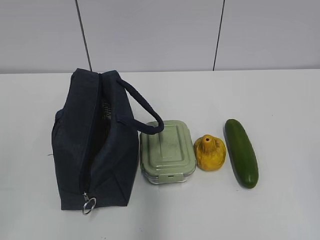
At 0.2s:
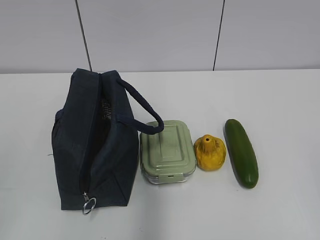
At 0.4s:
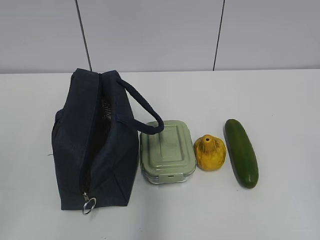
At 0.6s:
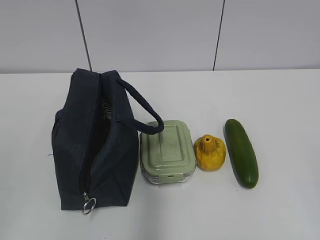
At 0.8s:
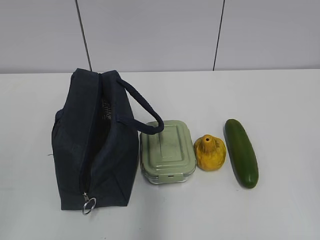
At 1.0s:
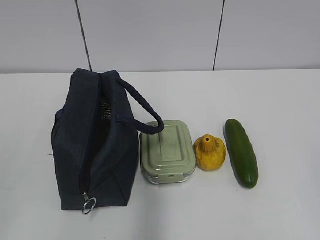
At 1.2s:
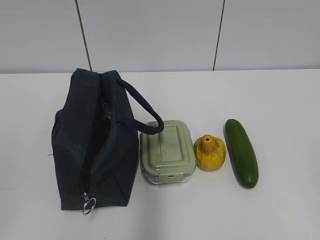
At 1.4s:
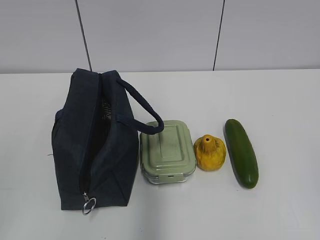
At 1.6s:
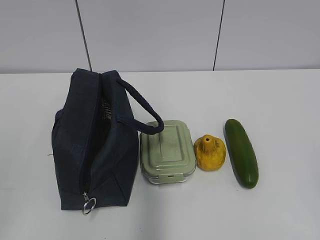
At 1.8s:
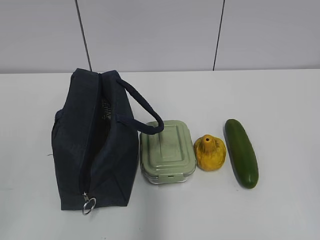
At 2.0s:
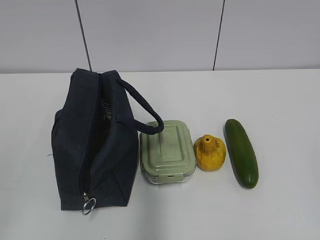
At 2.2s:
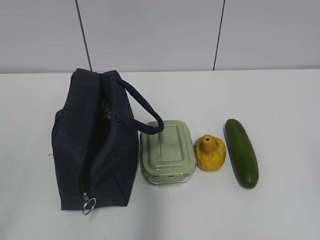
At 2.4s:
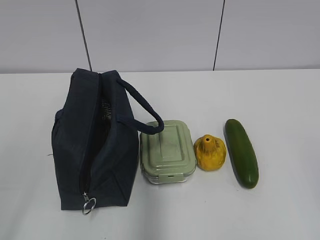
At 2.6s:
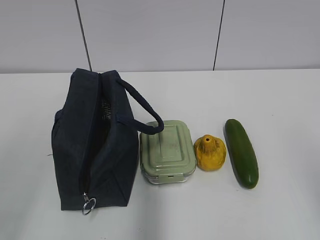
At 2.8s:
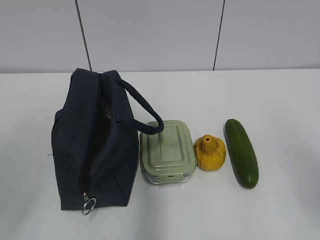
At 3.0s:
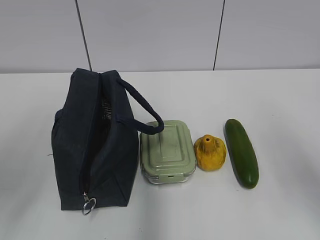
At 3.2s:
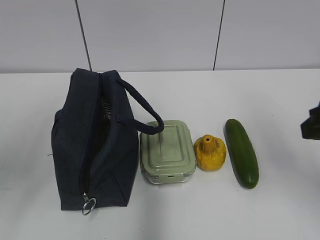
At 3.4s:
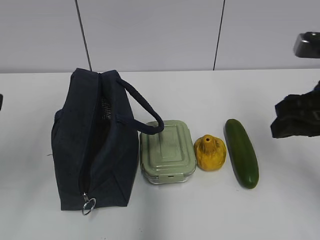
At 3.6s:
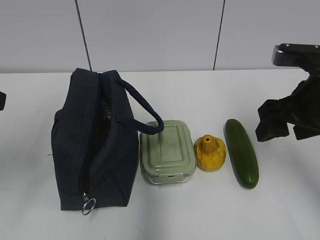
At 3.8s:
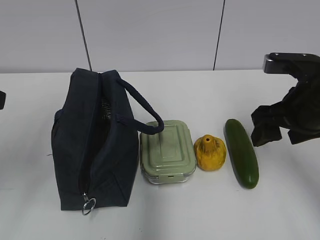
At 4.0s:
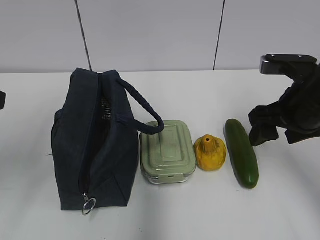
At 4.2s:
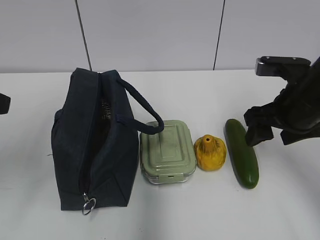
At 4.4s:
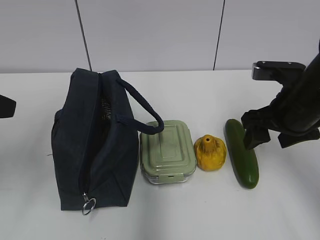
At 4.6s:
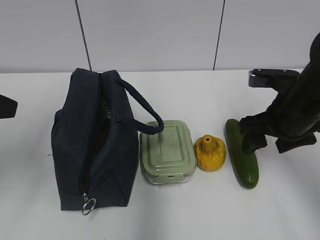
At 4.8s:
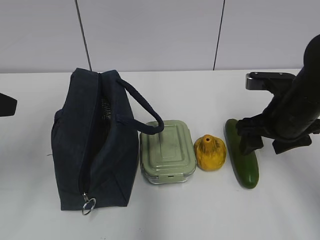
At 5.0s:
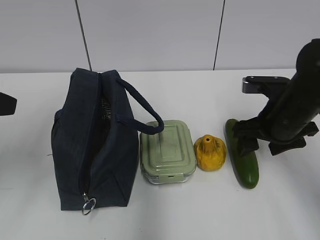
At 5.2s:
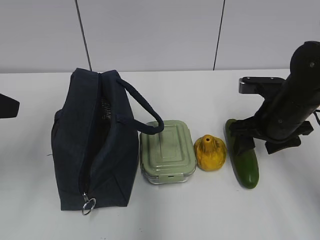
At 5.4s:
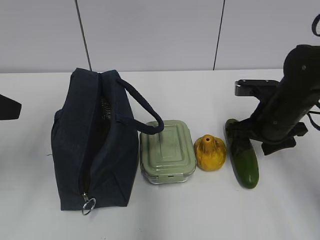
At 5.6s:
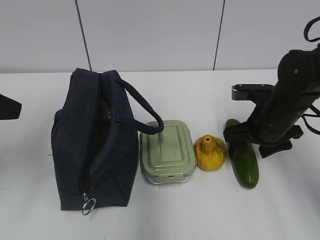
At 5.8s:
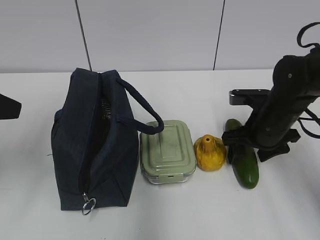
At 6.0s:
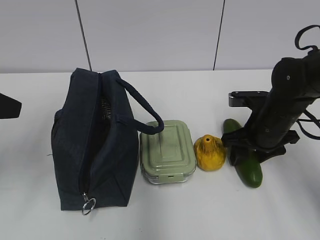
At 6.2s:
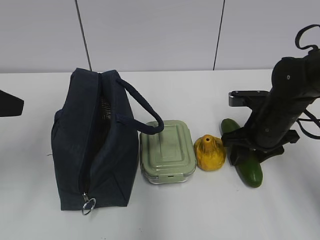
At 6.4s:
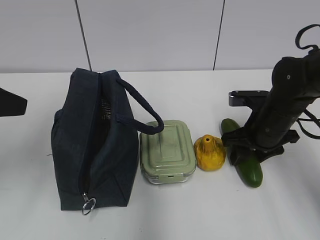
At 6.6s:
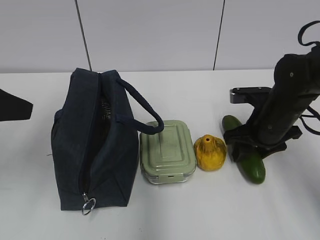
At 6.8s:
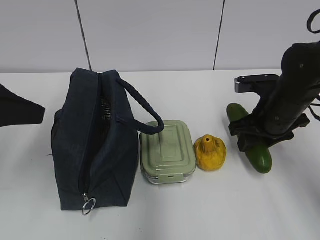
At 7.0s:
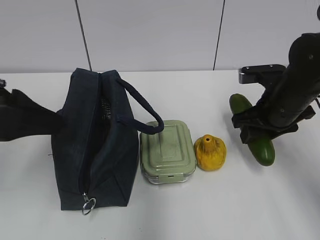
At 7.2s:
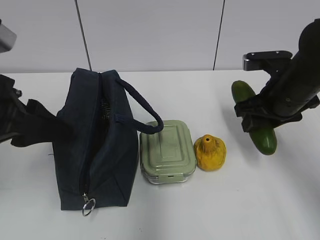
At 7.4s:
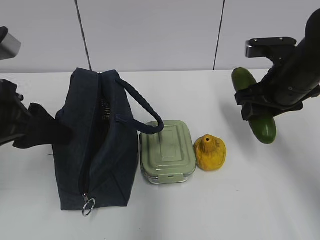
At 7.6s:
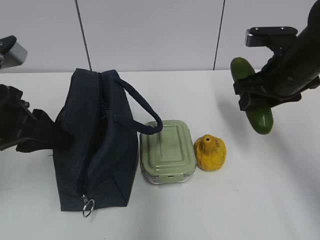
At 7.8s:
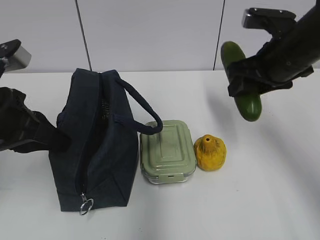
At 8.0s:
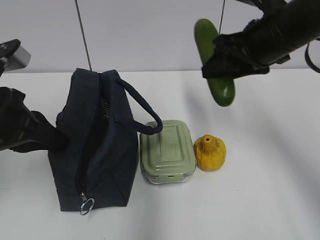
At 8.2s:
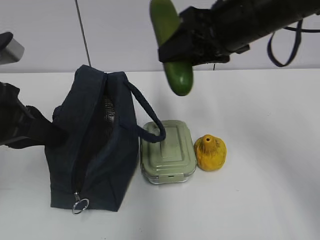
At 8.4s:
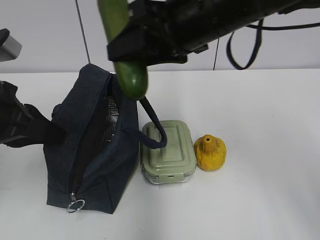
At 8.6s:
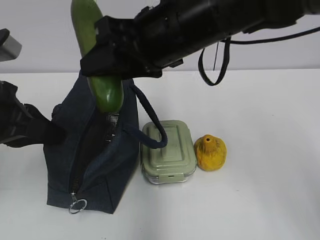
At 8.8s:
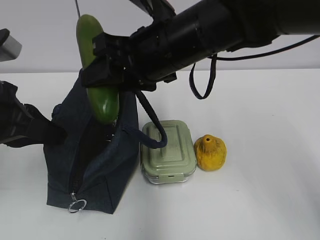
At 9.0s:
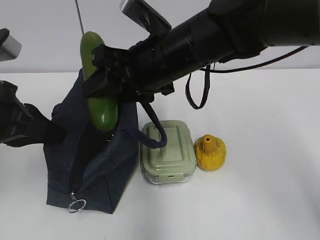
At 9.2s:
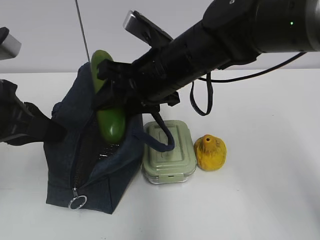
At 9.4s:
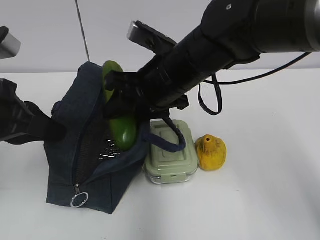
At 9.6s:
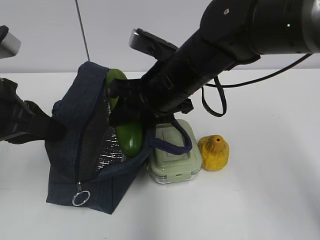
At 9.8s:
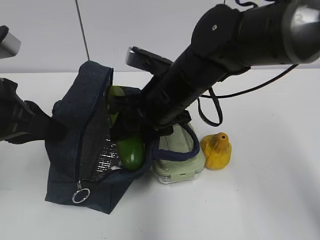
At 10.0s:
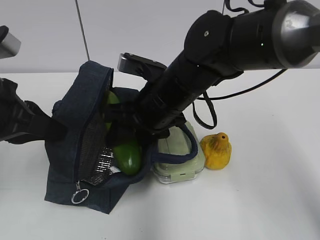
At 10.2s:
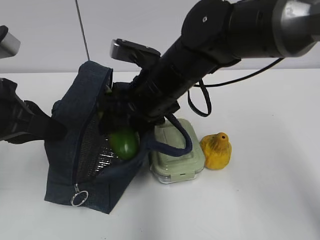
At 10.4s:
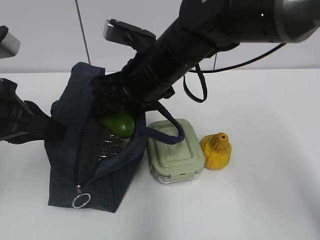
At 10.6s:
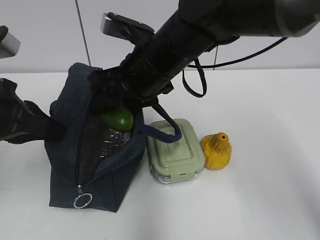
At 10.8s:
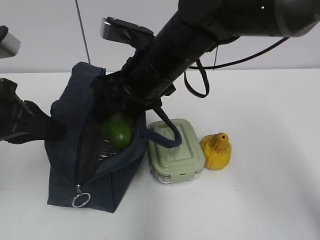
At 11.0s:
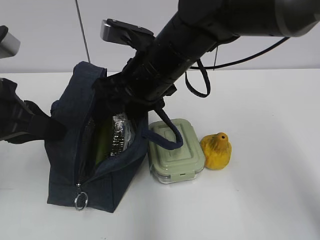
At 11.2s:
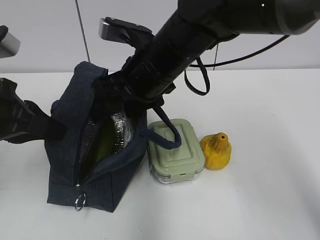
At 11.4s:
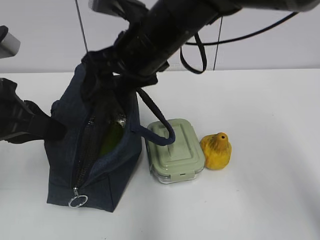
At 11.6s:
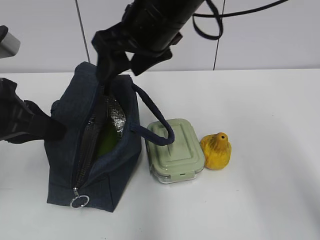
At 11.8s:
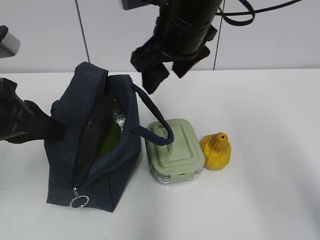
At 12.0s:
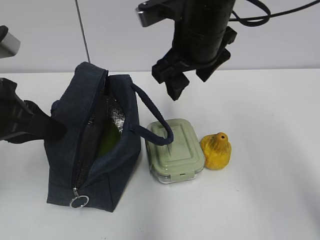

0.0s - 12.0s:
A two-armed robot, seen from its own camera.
Step, 0.0s - 6.2s: Grab the cucumber with your right hand.
Step, 6.4s - 9.2s: Grab the lunch bag with your left hand.
Step, 9.4s - 11.4s: Place it into the bag with your right hand.
1.6s - 3.0s: The two grippers go about 15 cm forward.
3.0s - 4.4s: The right gripper goes about 15 cm forward and downward; the left gripper shifts roughly 5 cm forward.
4.4s - 6.0s: The right gripper shifts roughly 10 cm downward.
6.0s - 7.6s: The right gripper heads upward, covering some 10 cm. The left gripper changes place by approximately 5 cm.
7.6s - 9.0s: The right gripper is displaced to the left by roughly 20 cm; the left gripper closes its fingers.
9.0s - 10.4s: The grippers stay close to where they were, moving slightly.
10.4s - 12.0s: The right gripper is displaced to the right by roughly 5 cm.

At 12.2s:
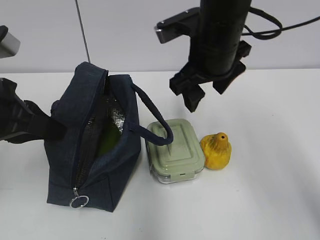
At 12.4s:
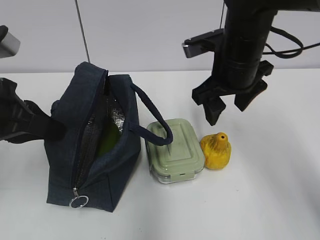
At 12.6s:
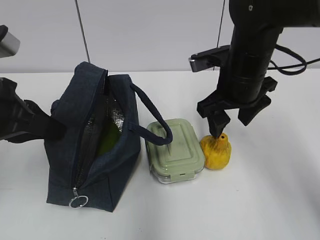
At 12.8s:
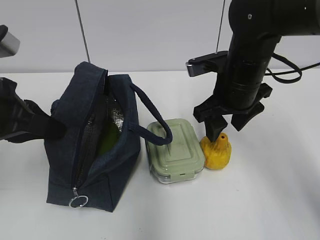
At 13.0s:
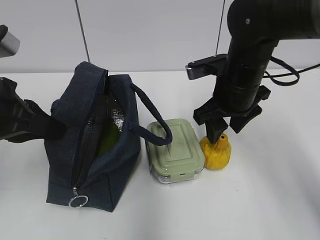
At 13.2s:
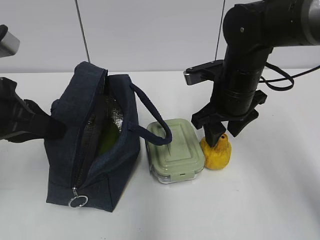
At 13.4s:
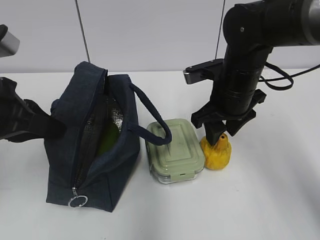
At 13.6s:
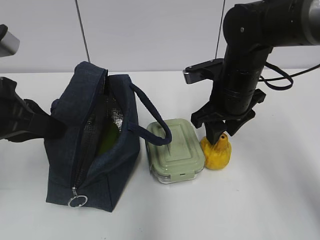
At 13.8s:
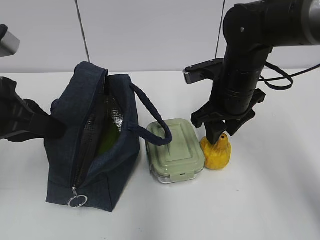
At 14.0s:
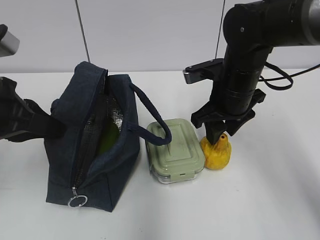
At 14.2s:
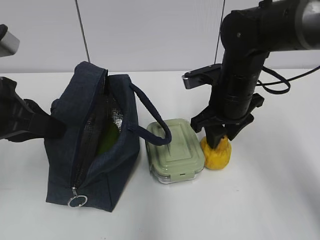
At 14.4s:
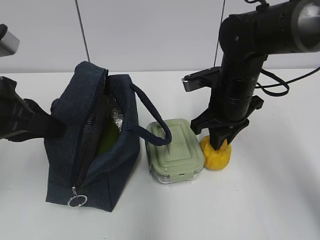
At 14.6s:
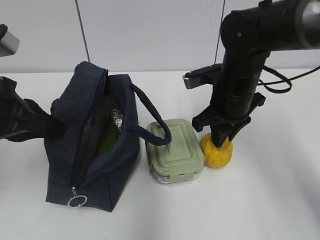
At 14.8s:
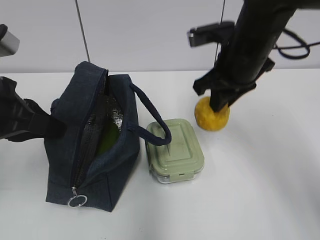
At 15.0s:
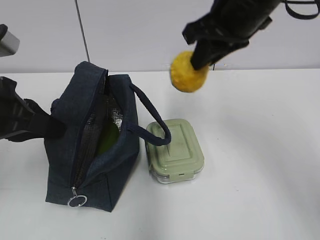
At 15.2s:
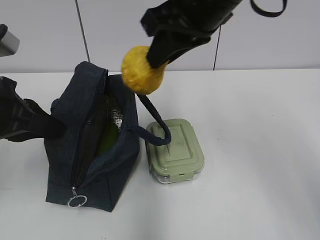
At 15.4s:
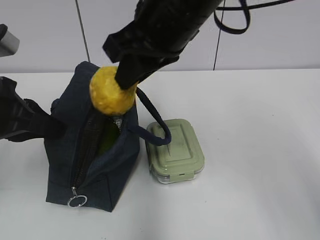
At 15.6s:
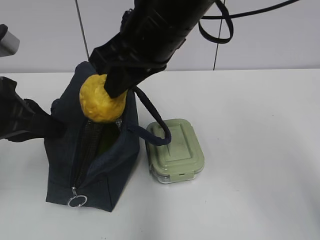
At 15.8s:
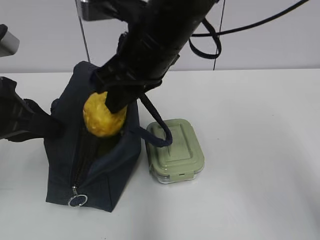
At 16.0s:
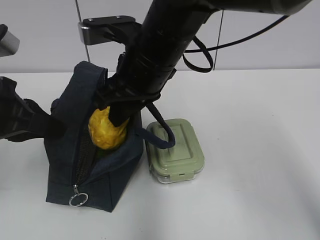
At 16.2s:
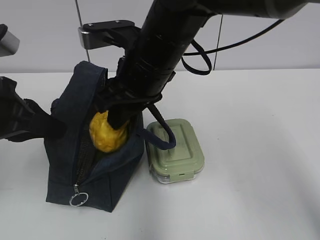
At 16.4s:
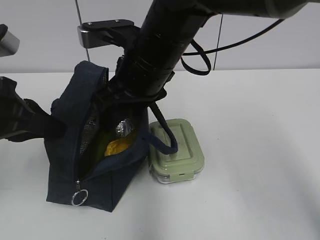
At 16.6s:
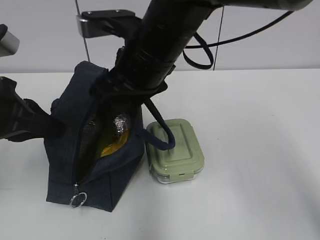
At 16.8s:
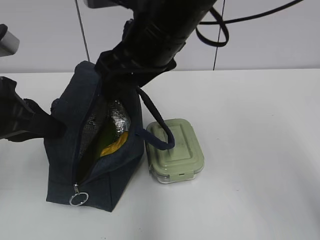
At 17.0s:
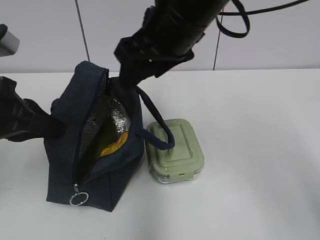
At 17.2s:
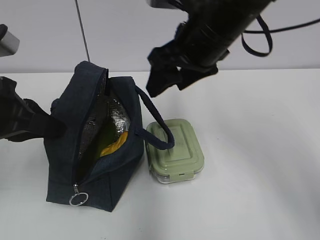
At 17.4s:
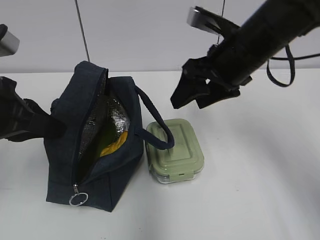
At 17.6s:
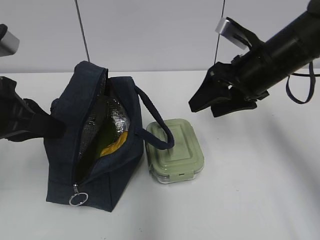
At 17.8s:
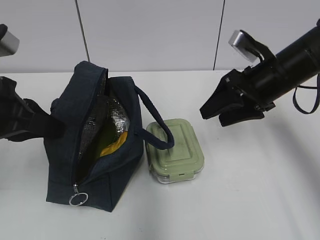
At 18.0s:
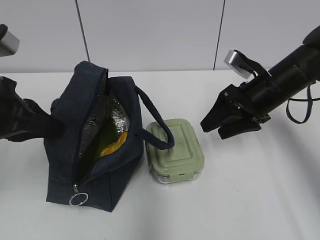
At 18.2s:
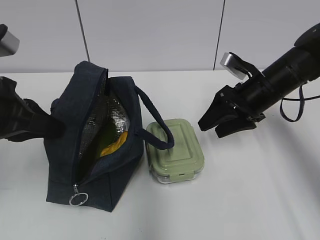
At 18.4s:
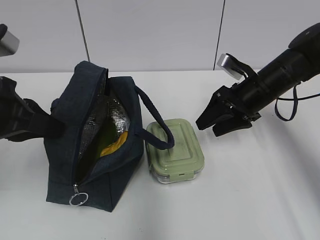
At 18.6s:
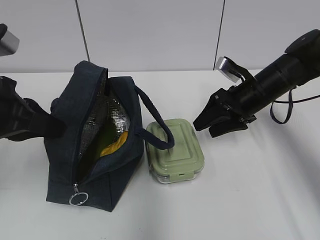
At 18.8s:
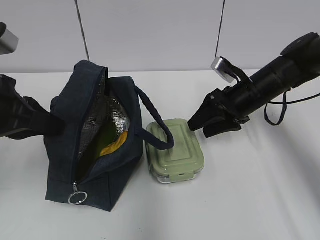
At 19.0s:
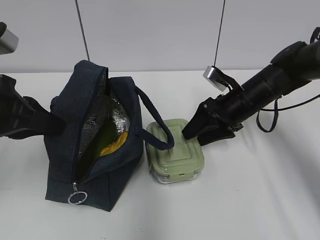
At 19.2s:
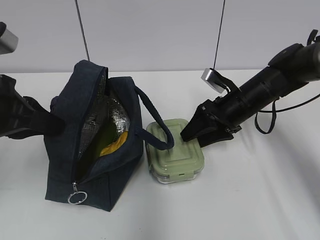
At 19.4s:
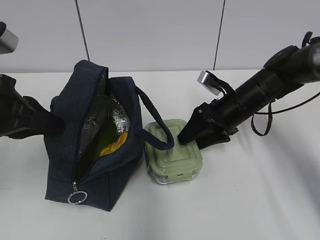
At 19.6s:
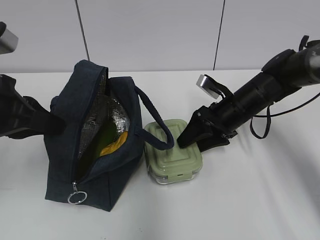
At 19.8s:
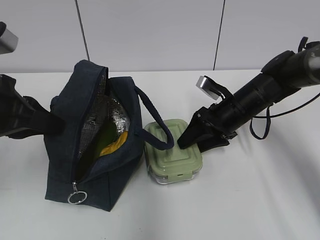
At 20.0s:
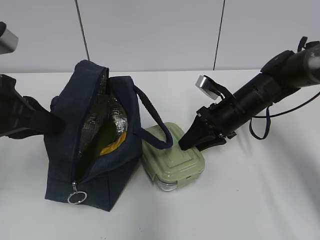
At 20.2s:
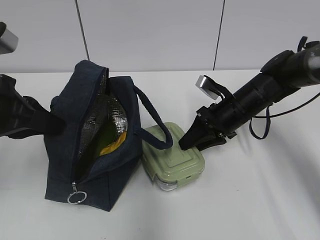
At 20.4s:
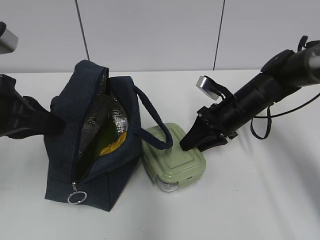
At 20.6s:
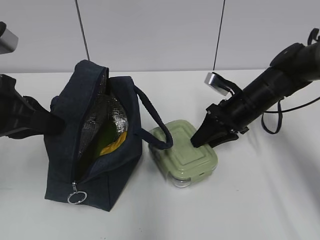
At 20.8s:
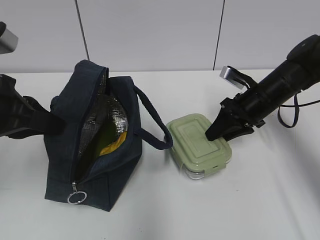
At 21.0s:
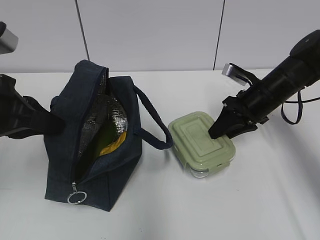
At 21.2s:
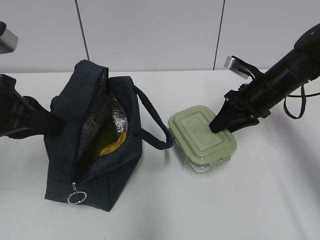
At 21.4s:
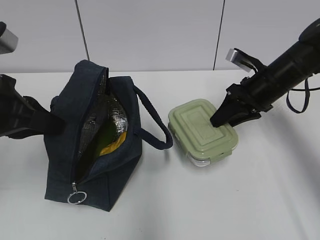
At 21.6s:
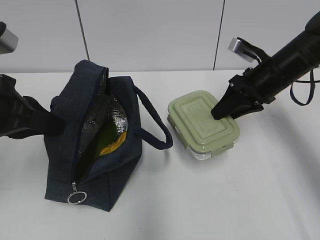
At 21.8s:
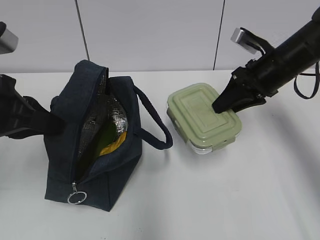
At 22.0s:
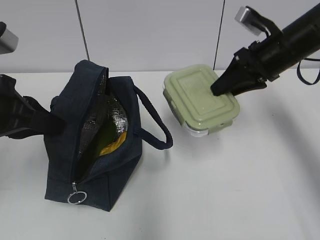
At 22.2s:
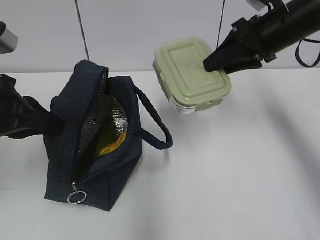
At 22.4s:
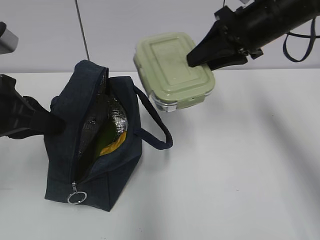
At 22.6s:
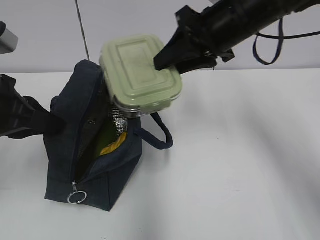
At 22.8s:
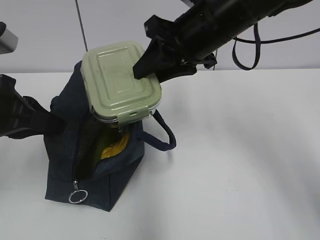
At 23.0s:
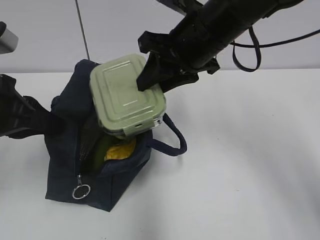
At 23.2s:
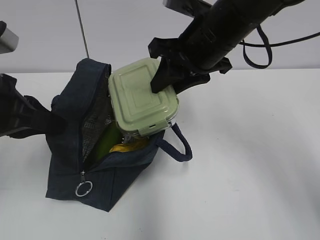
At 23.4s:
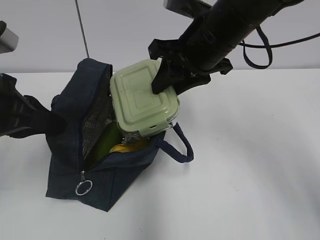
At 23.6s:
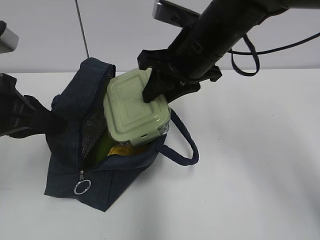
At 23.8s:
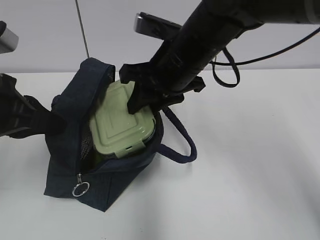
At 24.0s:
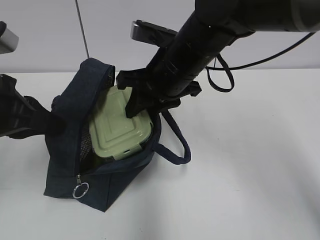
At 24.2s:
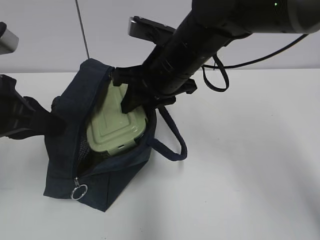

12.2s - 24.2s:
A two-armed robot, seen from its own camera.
Step, 12.2s - 14.4s: Grab the pear with your right hand.
Step, 14.6s - 16.8s: Place it into the bag with your right hand.
Step, 17.0s - 20.0s: Grab the lunch box with your right hand.
12.2s - 13.8s: The right gripper travels downward by about 10 cm.
13.8s - 15.2s: The right gripper travels upward by about 15 cm, and closes up.
15.2s - 16.6s: The right gripper goes approximately 10 cm downward and to the left, and opens.
16.6s - 18.2s: The right gripper goes roughly 25 cm to the right and downward.
18.2s - 19.8s: The right gripper goes approximately 5 cm downward.
19.8s - 21.2s: The right gripper shifts about 5 cm to the right, and closes up.
21.2s - 22.6s: The right gripper travels upward and to the left by roughly 20 cm.
22.6s - 24.2s: The right gripper shifts some 10 cm to the left and downward.
